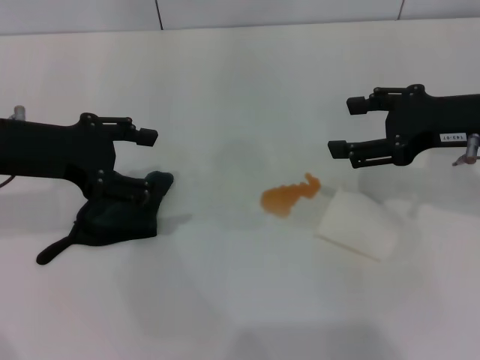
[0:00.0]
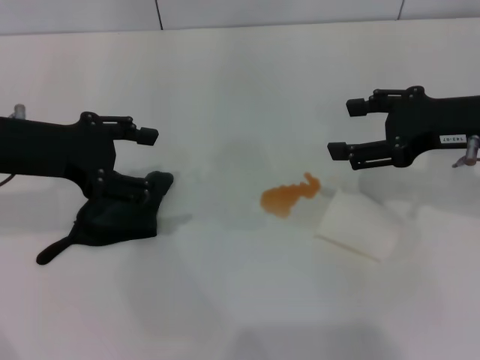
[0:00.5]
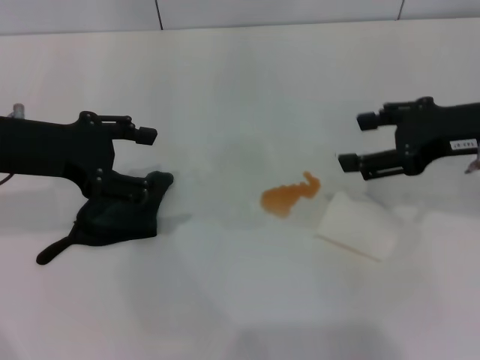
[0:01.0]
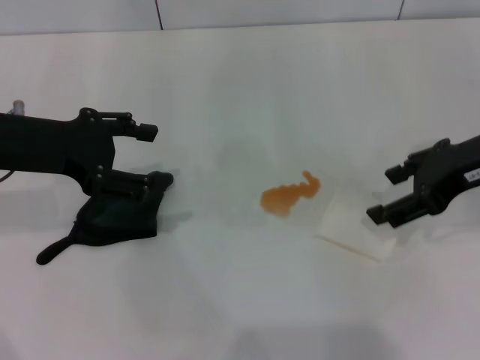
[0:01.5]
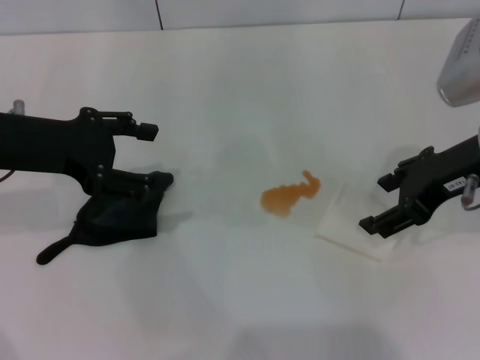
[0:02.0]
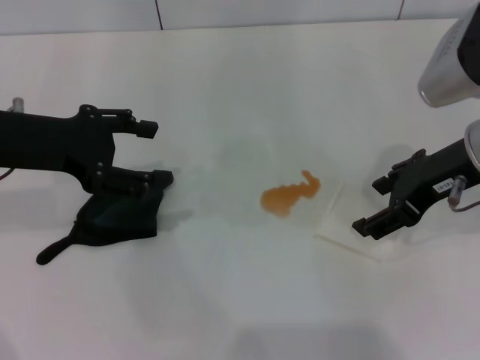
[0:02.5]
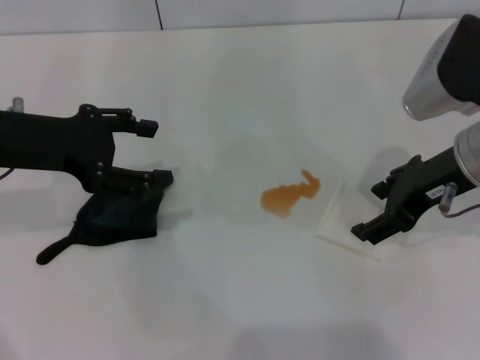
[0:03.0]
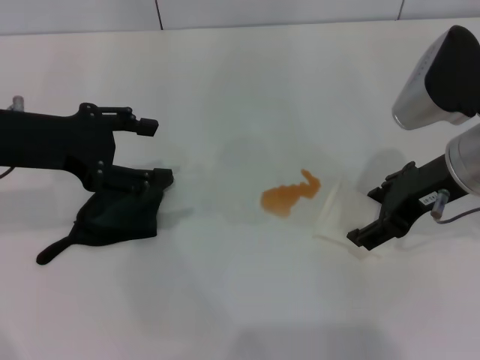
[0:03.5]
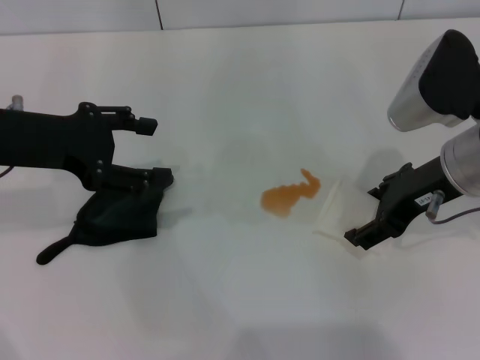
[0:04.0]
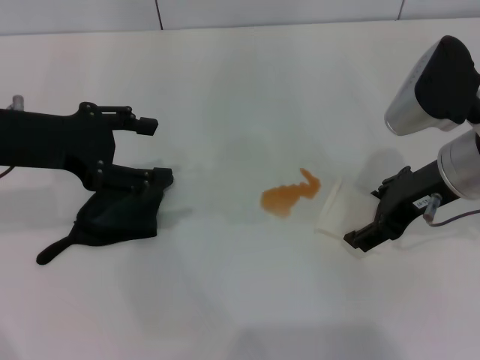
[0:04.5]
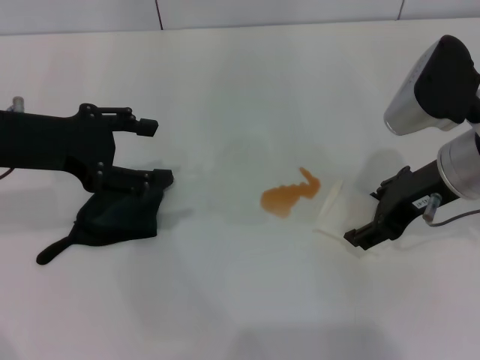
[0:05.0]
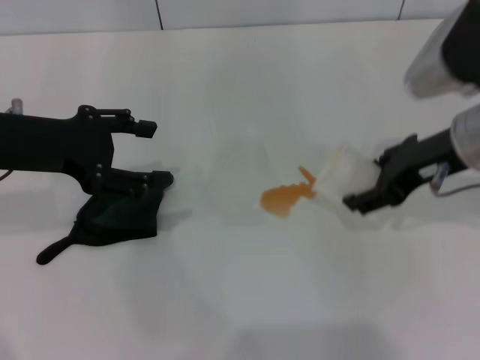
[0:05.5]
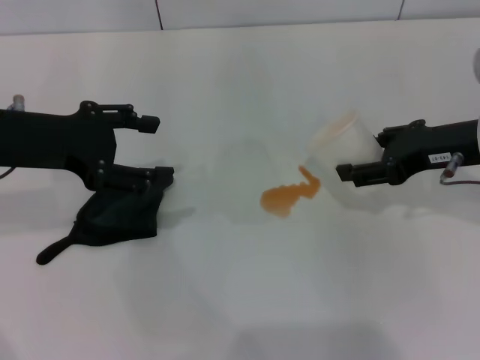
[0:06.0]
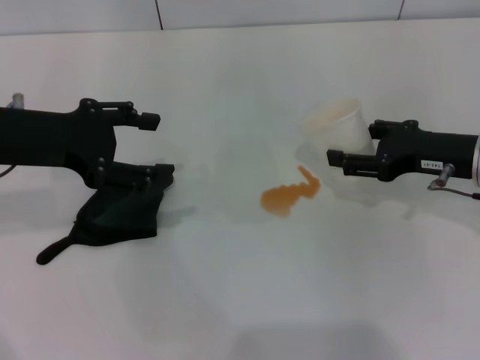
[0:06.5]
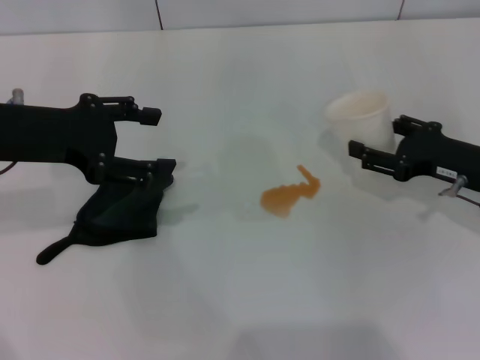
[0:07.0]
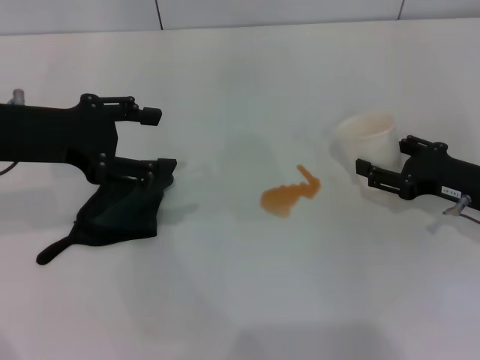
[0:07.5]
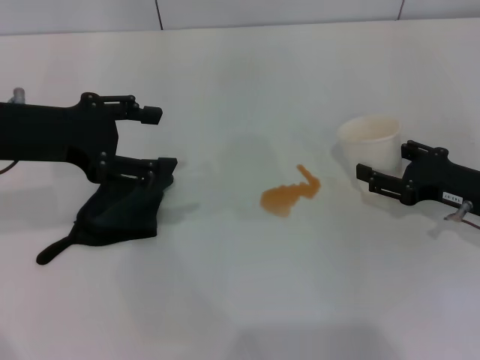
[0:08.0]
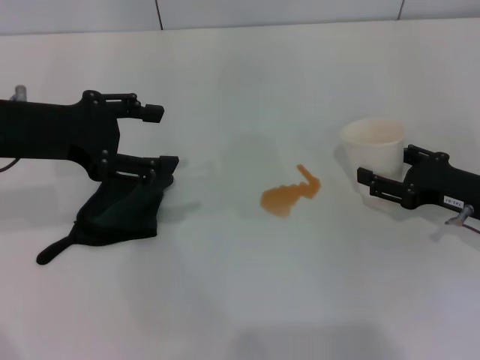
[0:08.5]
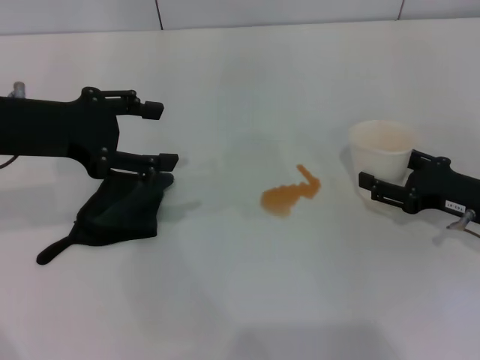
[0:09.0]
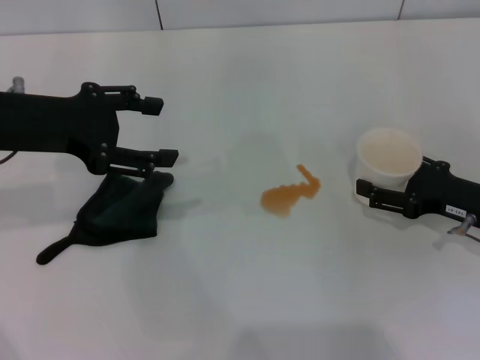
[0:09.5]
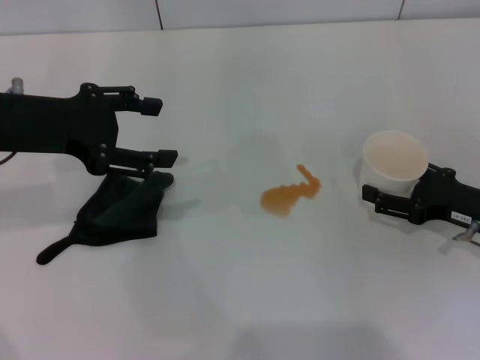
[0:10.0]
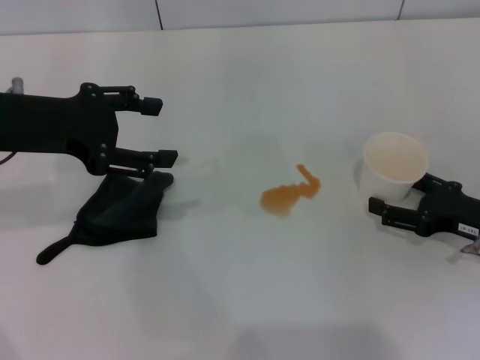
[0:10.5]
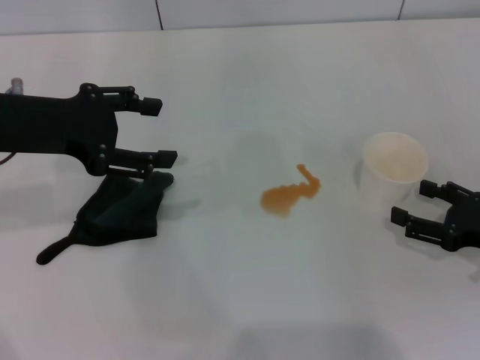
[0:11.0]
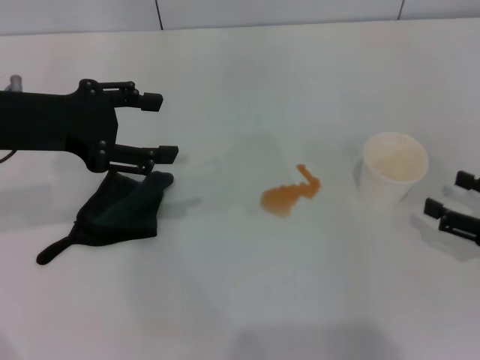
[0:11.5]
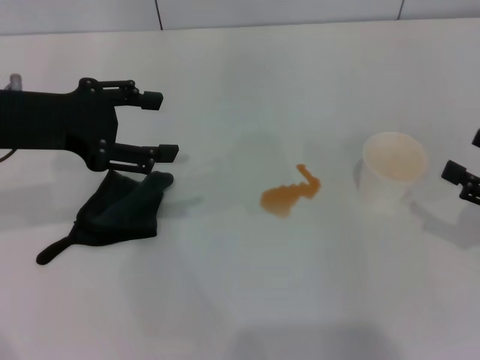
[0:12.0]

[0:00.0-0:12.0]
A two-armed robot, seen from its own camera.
Step, 0:00.0 to 0:04.5: Grasp the paper cup with the right gripper.
Step, 0:05.0 to 0:11.0: Stand the paper cup upright with the right gripper.
0:02.0 to 0:04.0: The grippers move only a little.
0:04.0 to 0:06.0: The right gripper closes up.
0:06.0 to 0:08.0: The right gripper is displaced downward by approximately 10 cm.
0:08.0 to 0:10.0: The right gripper opens up.
0:10.0 to 0:12.0: The right gripper shifts some 10 cm backward, to the right and upward.

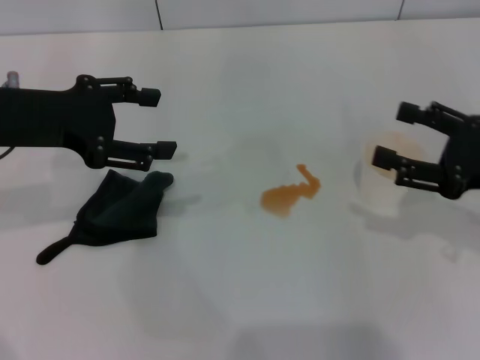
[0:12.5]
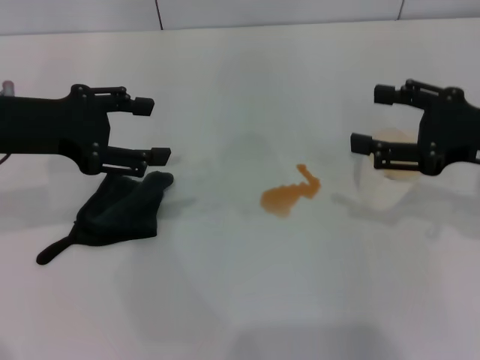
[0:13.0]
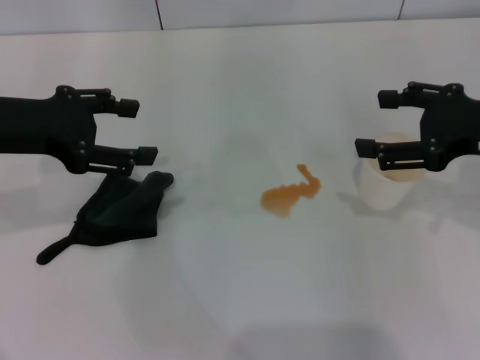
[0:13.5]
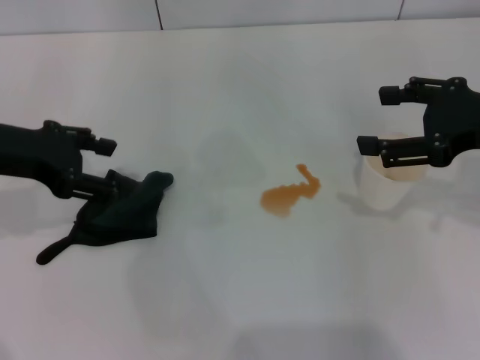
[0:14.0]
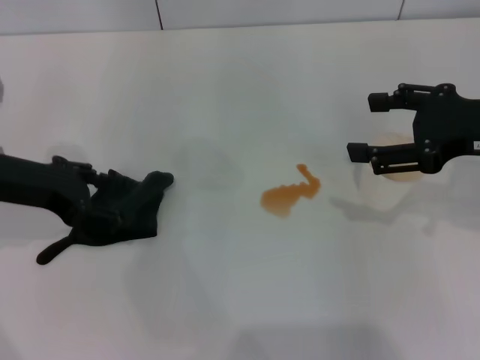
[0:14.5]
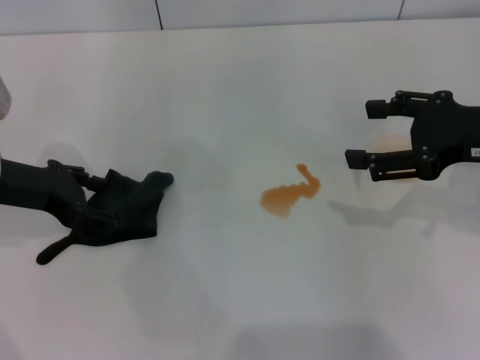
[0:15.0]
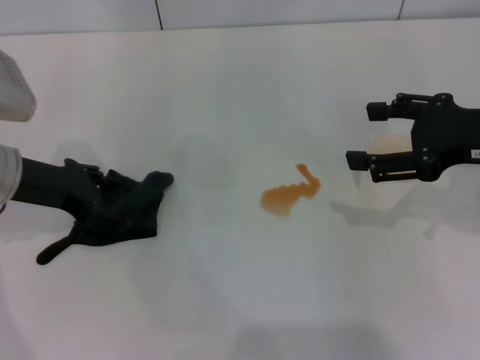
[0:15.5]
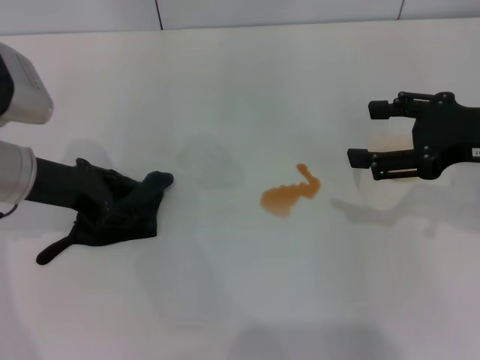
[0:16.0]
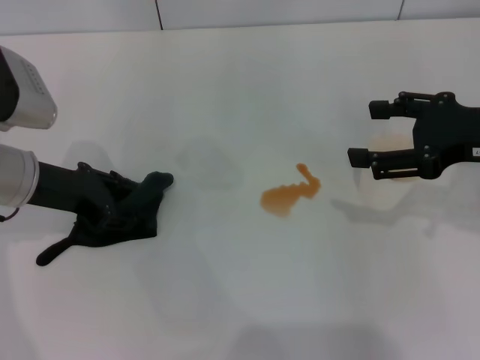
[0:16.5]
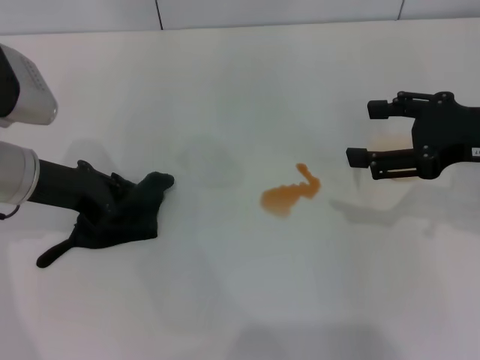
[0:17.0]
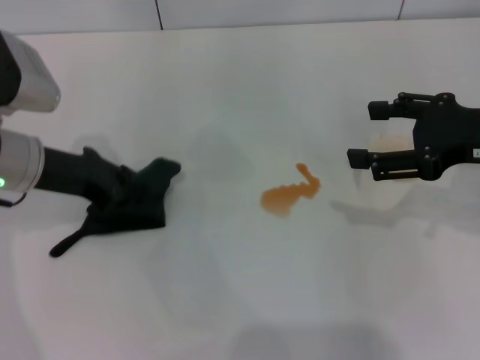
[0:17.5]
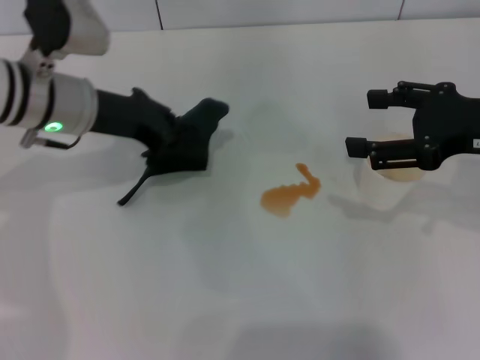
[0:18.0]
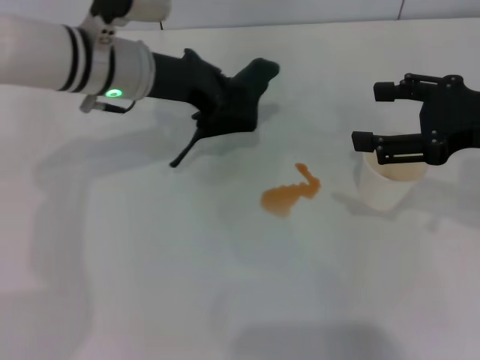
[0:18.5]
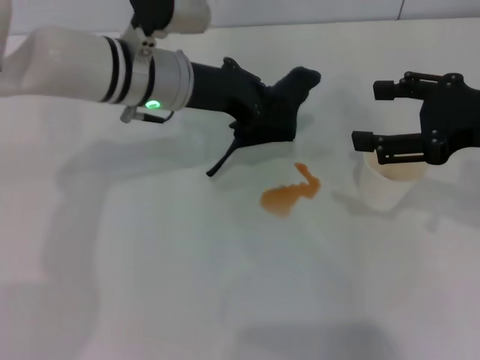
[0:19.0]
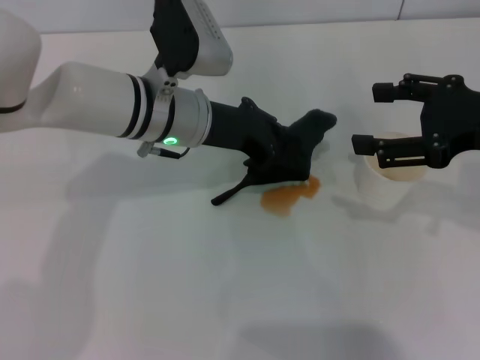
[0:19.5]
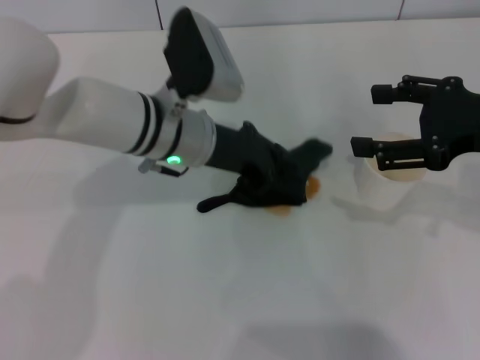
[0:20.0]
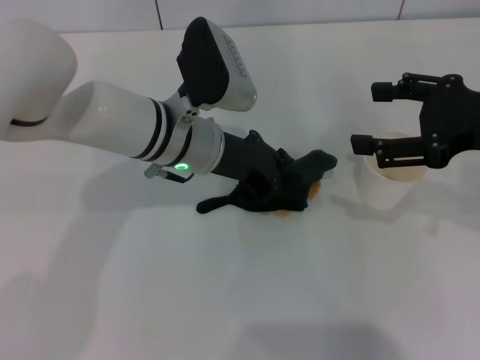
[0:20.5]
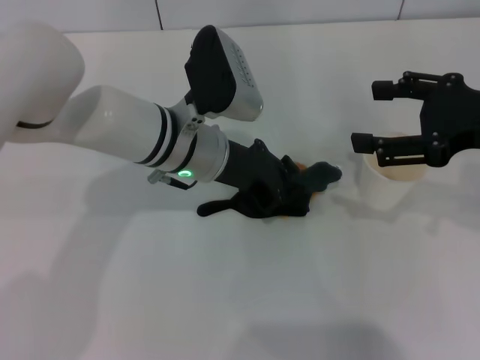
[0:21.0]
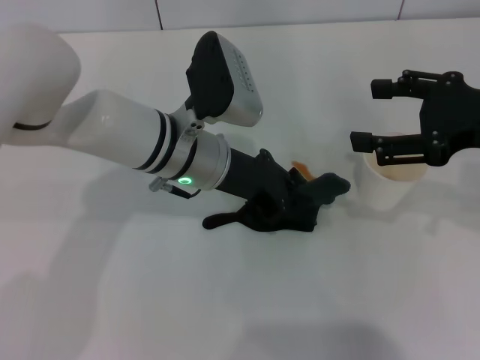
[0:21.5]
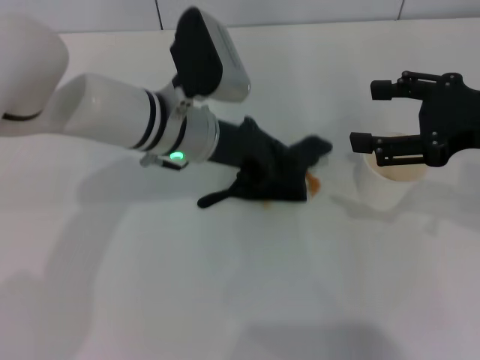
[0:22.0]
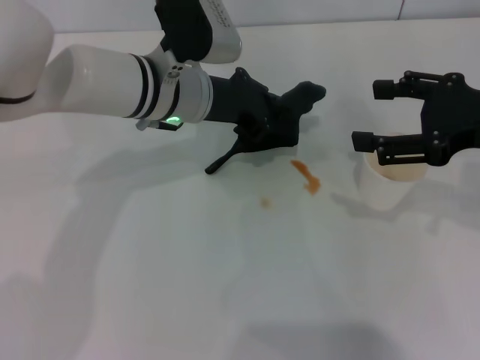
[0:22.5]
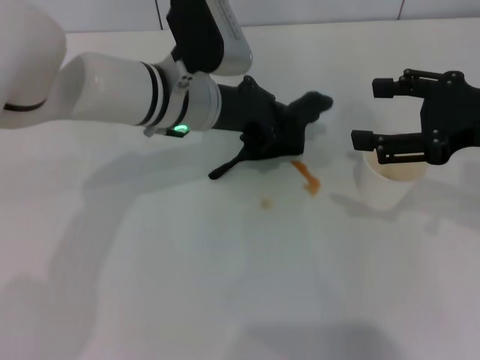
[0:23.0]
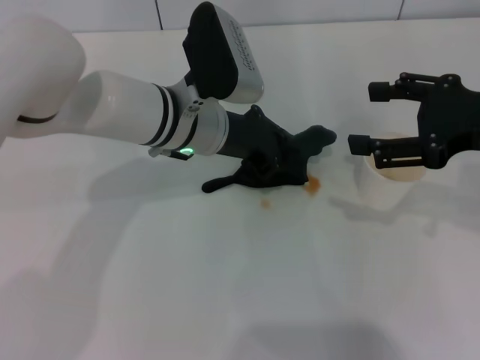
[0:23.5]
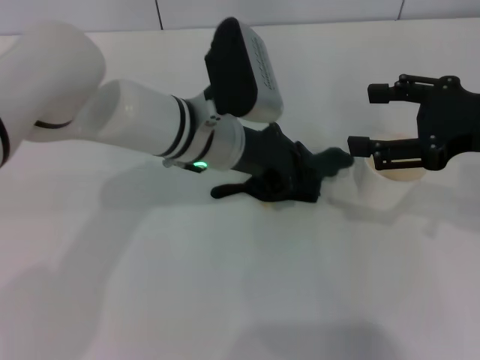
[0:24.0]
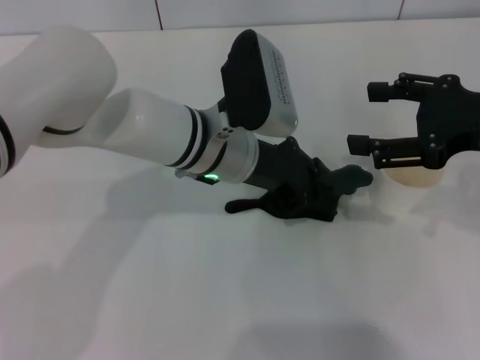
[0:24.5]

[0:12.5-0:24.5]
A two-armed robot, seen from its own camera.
Step, 0:12.5 to 0:17.0: Grasp the rag with the left gripper.
0:12.5 to 0:14.5: The right gripper shifts approximately 5 cm upward.
0:14.5 to 0:16.5: The left gripper closes its fingers.
0:16.5 to 0:18.5: The left gripper shifts roughly 15 cm to the right and forward, and closes up.
0:18.5 to 0:20.5: The left gripper shifts about 5 cm to the right.
0:20.5 to 0:22.5: The grippers make only small movements.
0:22.5 to 0:24.5: The left gripper moves roughly 5 cm.

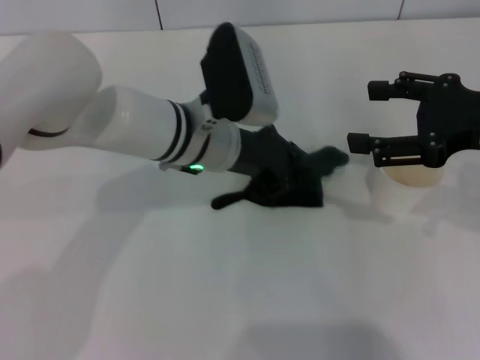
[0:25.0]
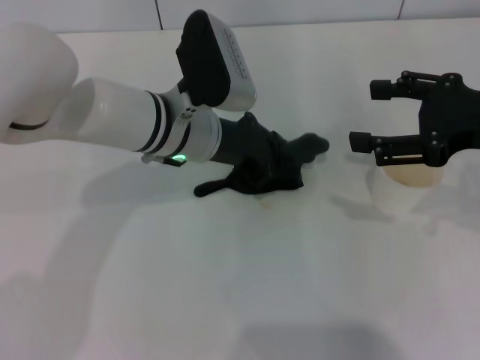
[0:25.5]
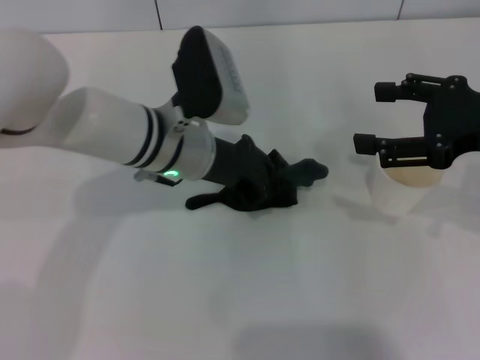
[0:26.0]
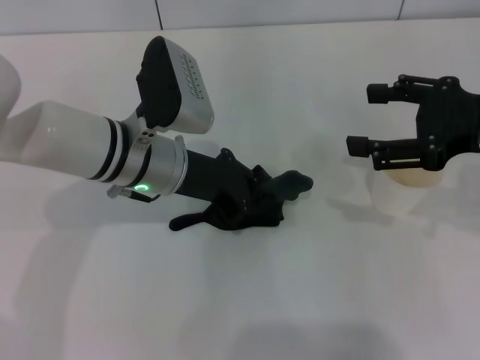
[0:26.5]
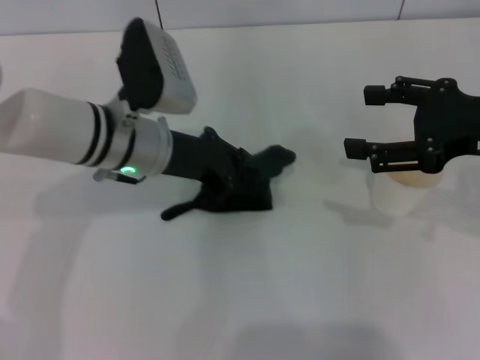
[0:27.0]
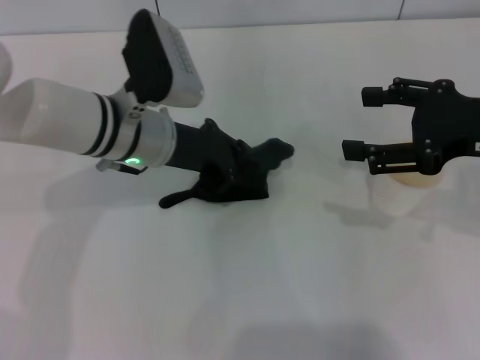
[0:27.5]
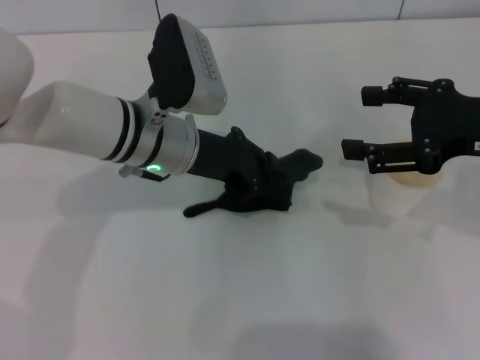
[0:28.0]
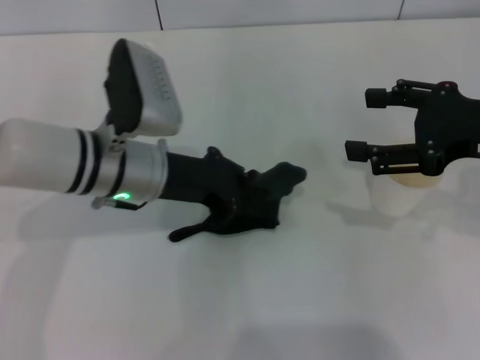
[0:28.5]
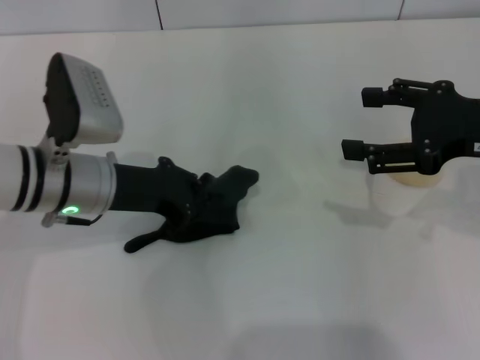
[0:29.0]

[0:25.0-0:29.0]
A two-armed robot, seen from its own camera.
0:25.0 to 0:27.0: The left gripper heads to the left, covering roughly 5 cm.
0:27.0 to 0:29.0: The left gripper travels to the left by some 5 cm.
